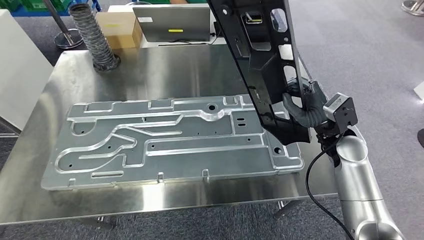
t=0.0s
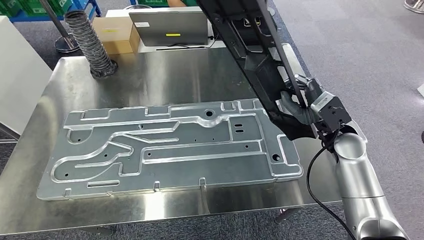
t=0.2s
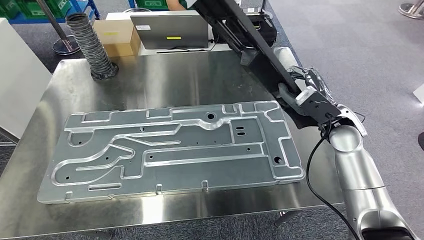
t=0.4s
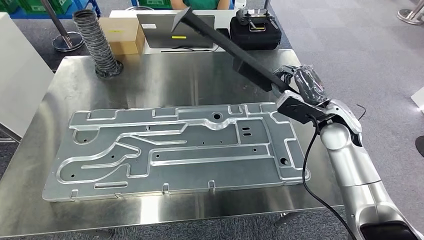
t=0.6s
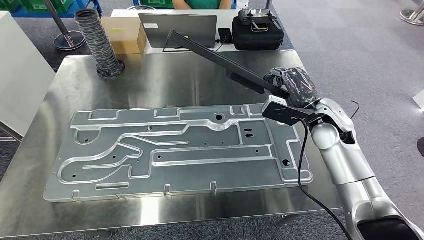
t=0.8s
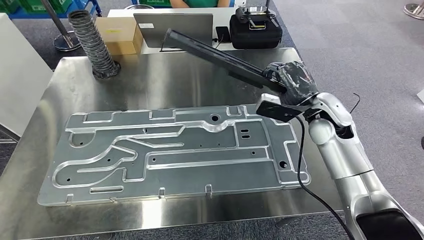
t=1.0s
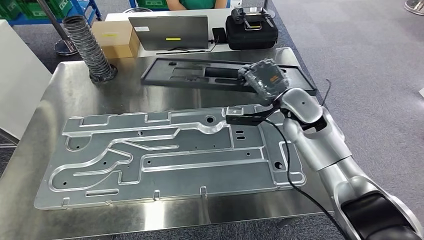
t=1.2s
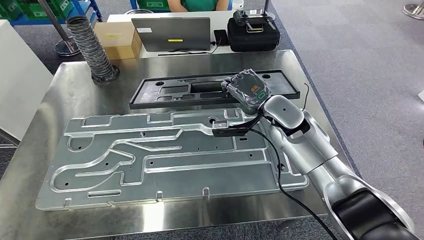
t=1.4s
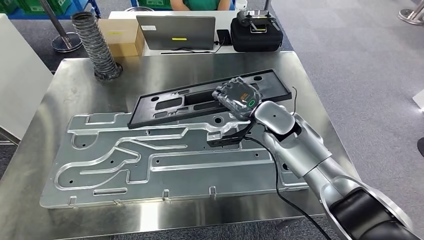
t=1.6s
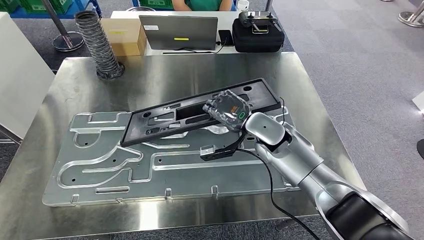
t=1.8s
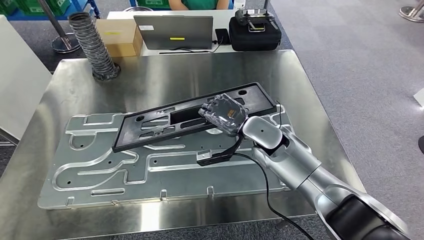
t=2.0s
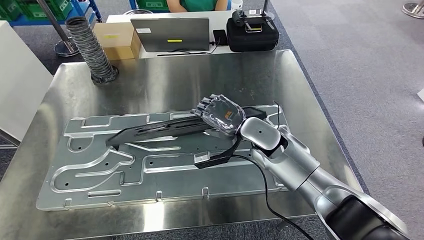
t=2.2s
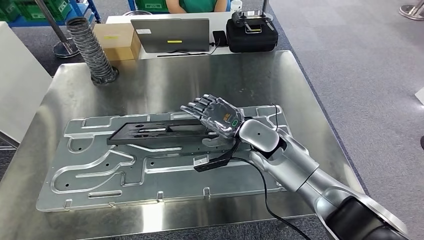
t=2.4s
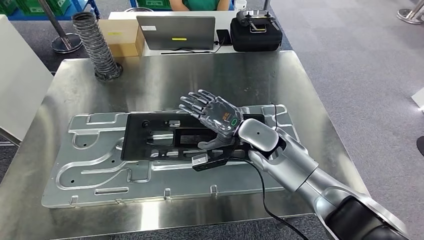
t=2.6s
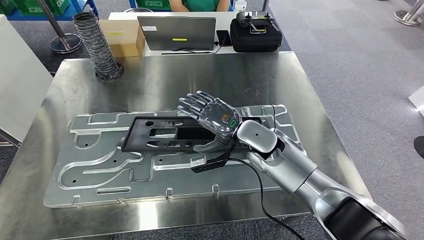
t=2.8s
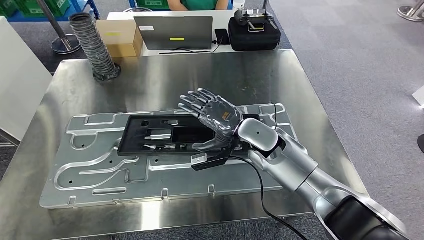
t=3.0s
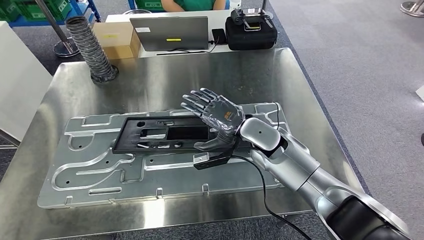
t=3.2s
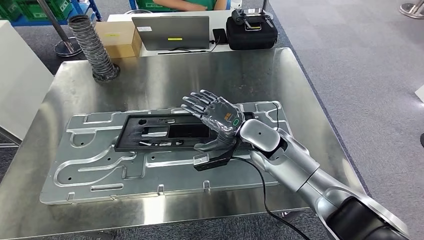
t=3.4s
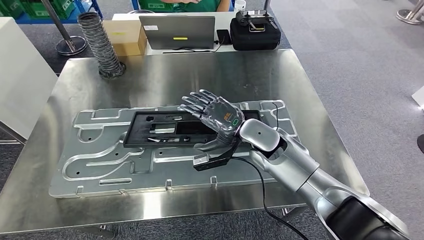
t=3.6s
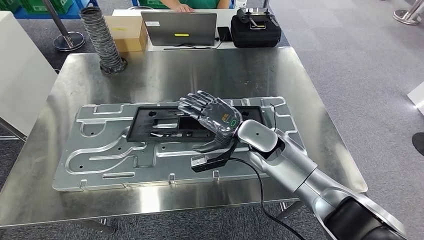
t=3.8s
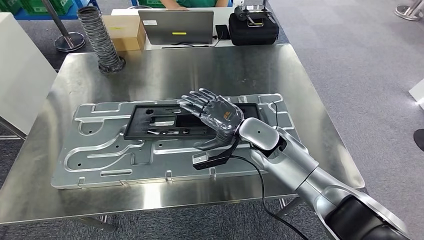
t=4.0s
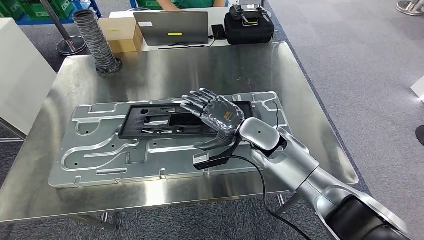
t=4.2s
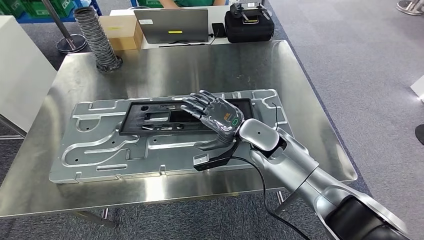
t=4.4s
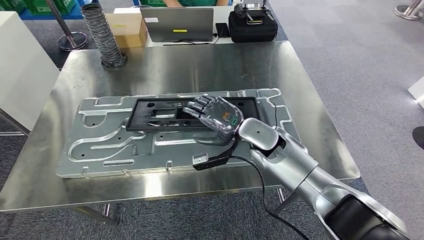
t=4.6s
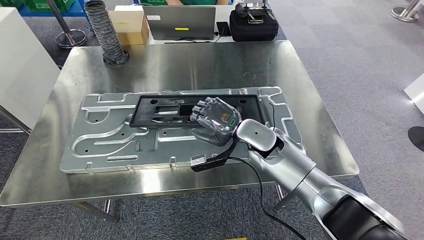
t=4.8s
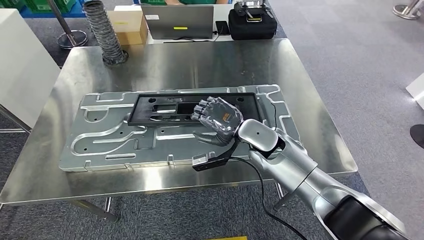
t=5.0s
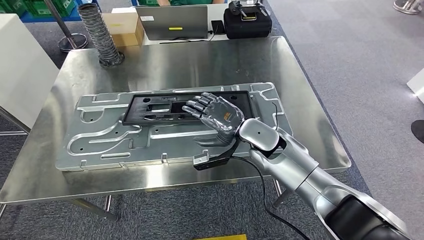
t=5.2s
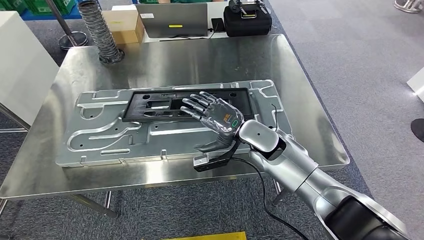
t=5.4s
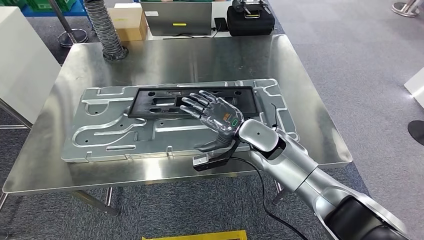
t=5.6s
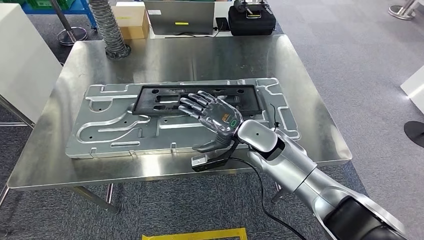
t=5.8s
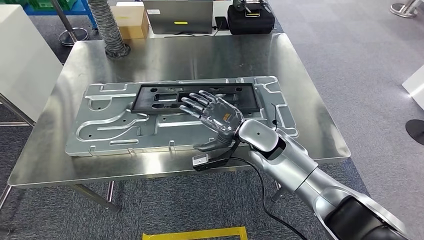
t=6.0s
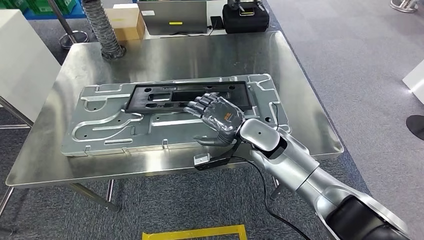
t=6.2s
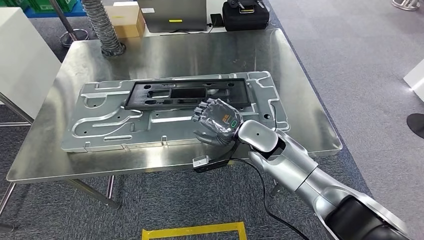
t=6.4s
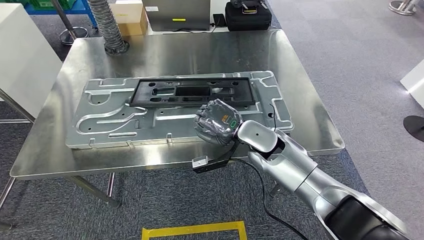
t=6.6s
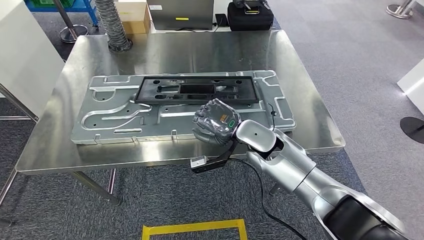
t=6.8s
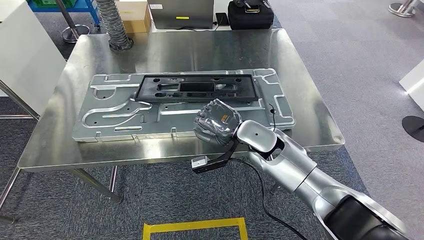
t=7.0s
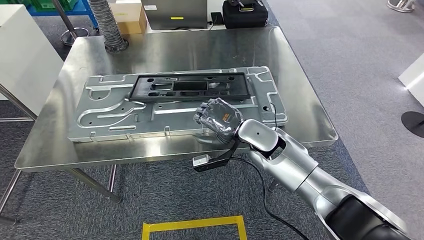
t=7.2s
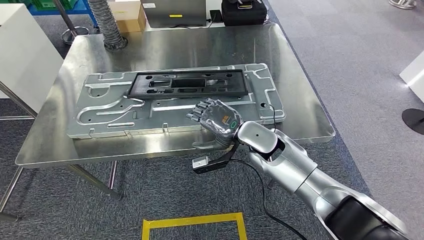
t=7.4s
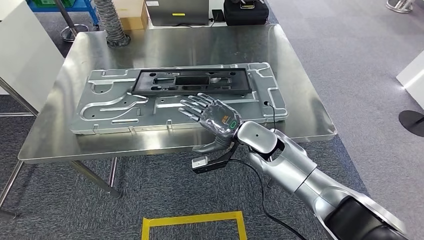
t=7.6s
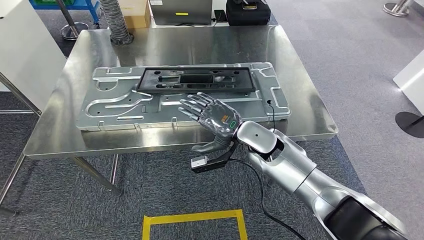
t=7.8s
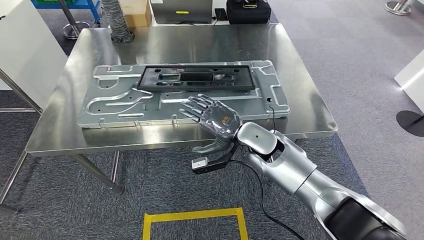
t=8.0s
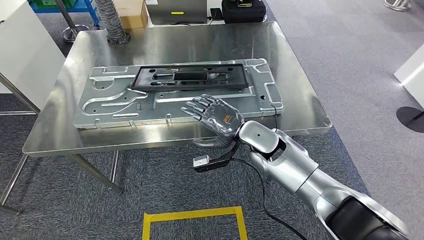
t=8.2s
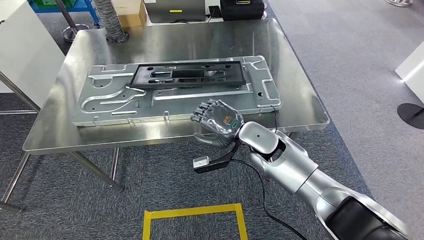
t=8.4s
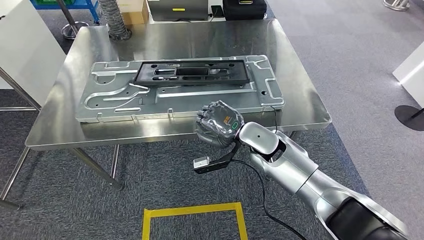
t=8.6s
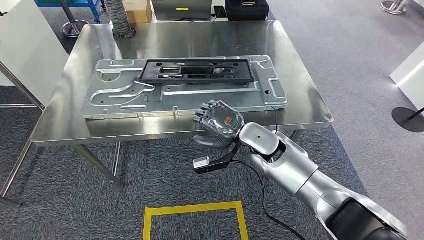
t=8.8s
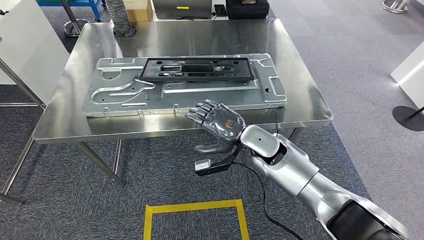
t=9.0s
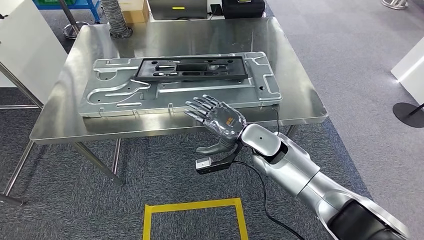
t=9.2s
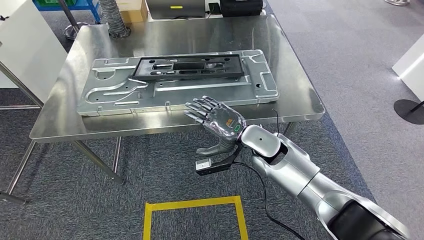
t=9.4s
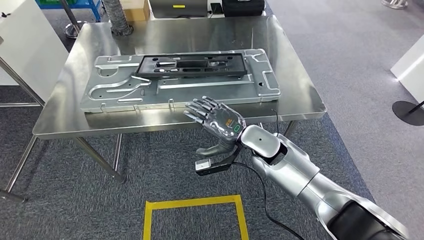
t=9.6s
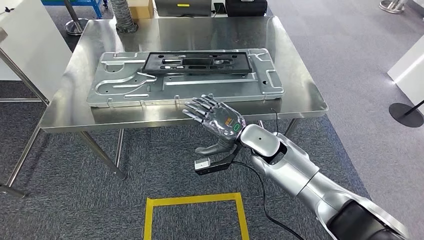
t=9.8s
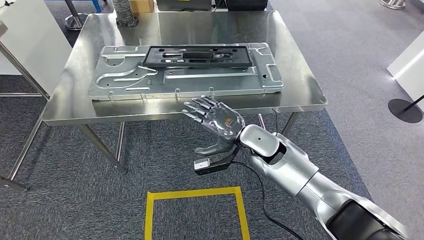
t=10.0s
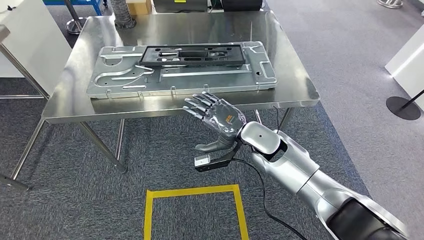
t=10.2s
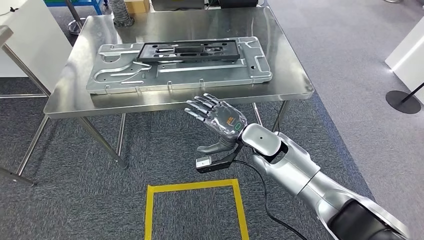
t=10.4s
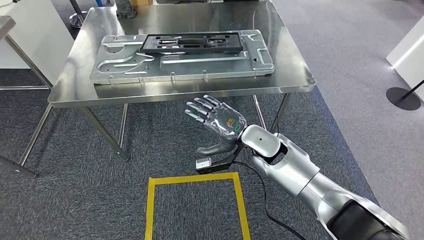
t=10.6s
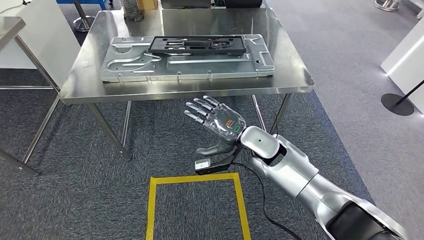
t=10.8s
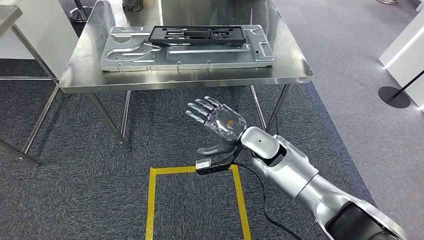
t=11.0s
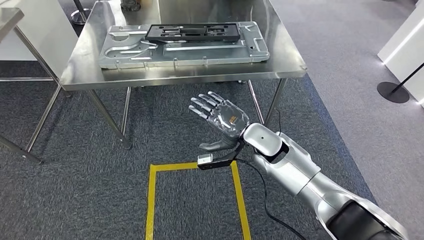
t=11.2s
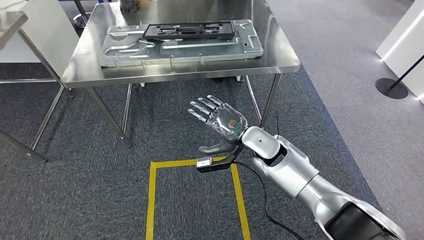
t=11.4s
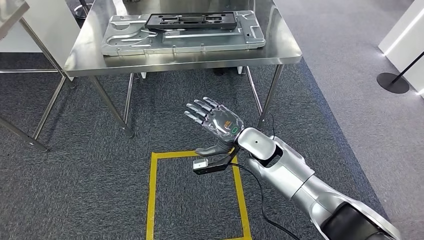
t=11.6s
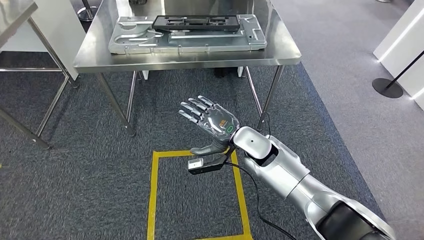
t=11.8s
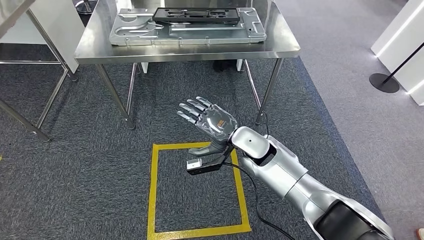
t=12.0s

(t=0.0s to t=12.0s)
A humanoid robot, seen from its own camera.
Step, t=0.0s - t=3.2s: Insert the large material into the corresponding slot on the workbench.

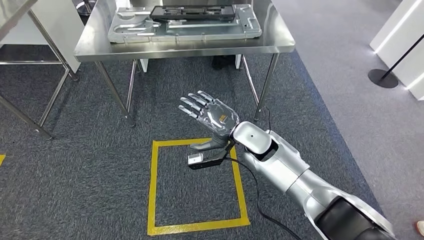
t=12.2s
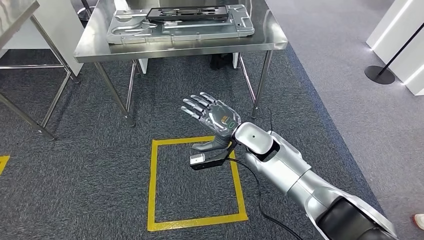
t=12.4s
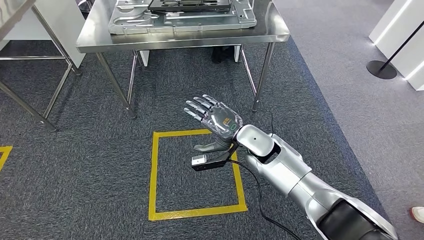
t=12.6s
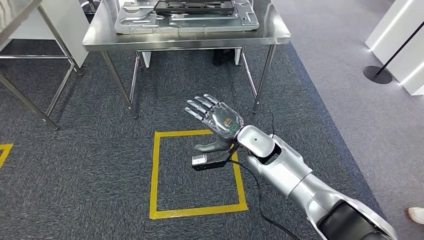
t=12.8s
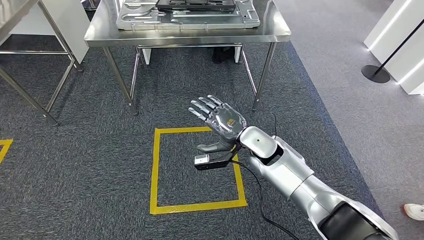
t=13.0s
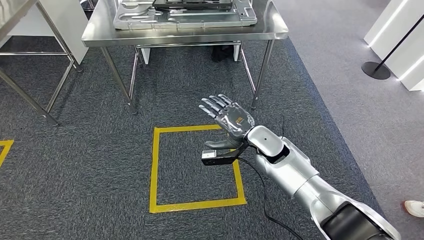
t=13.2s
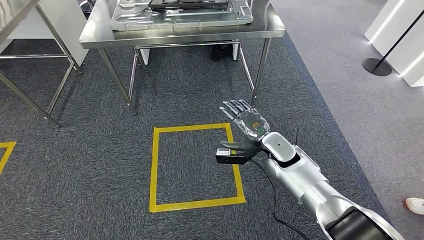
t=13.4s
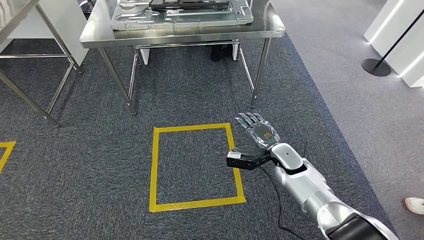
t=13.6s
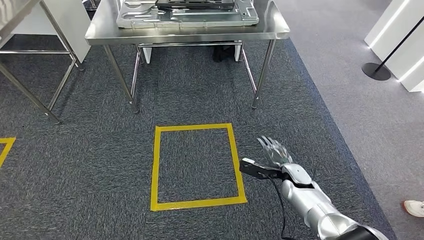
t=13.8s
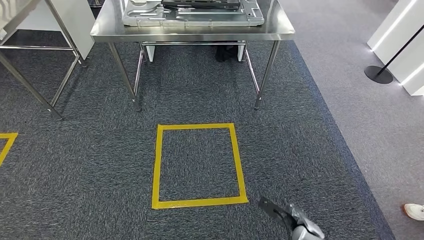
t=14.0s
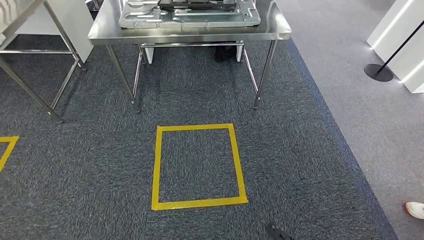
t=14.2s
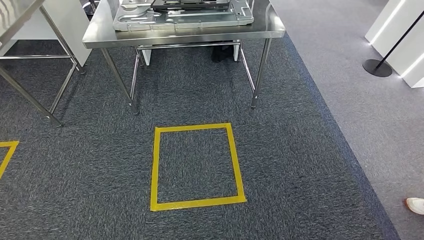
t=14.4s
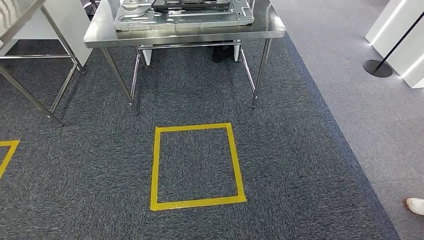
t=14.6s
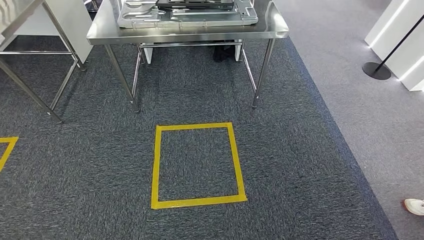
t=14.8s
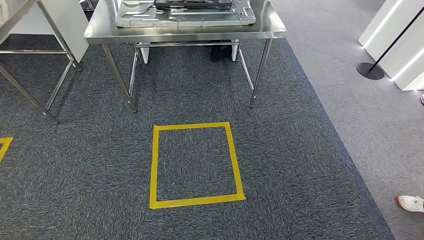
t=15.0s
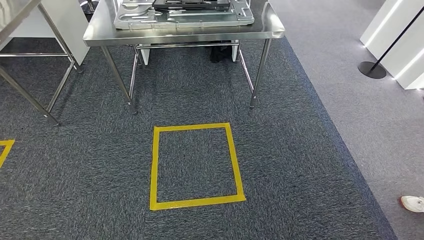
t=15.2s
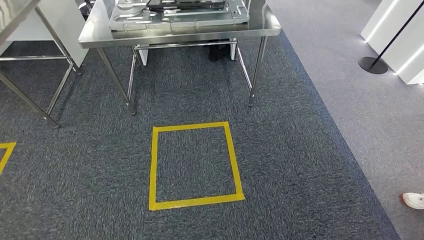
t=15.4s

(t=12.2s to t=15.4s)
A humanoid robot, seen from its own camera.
Step, t=12.2s - t=15.4s: Move to the initial position of the shelf.
t=13.8s - t=15.4s: The right hand moves backward and downward, some 40 cm.
